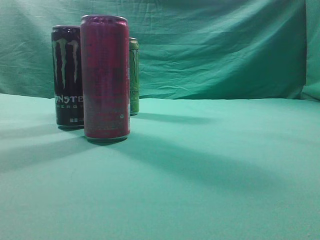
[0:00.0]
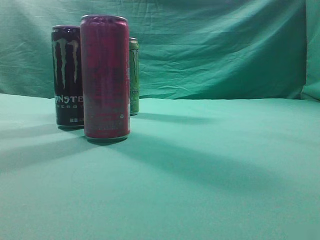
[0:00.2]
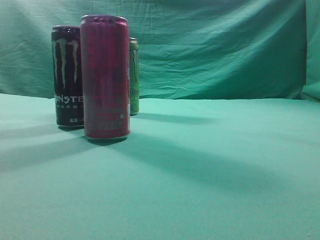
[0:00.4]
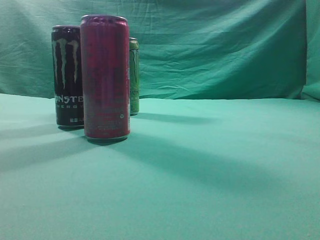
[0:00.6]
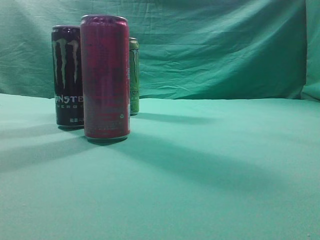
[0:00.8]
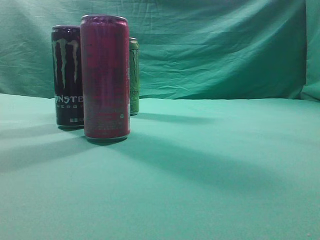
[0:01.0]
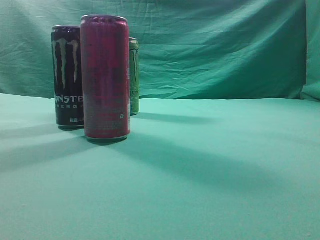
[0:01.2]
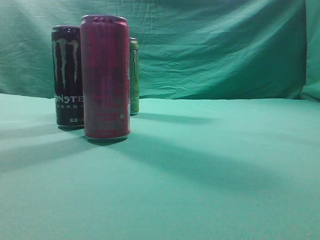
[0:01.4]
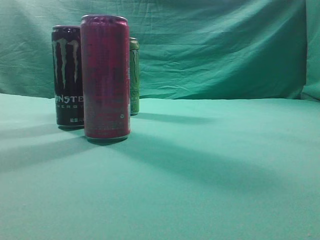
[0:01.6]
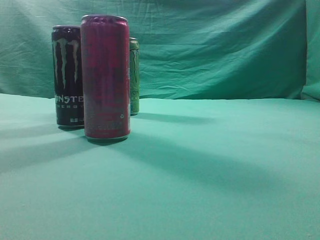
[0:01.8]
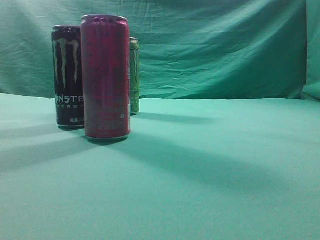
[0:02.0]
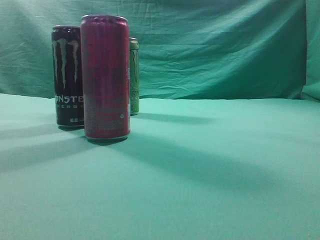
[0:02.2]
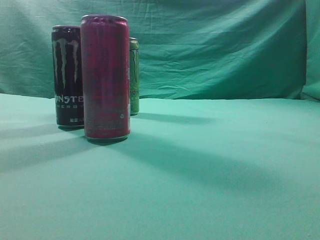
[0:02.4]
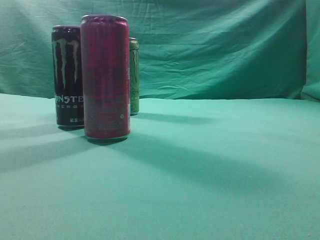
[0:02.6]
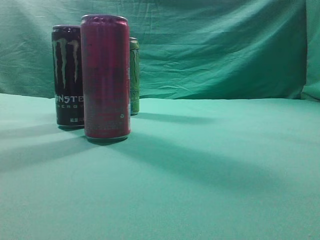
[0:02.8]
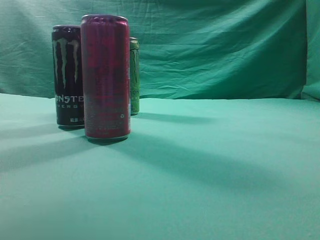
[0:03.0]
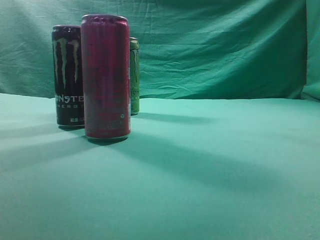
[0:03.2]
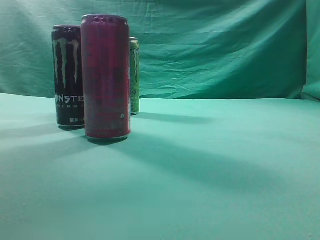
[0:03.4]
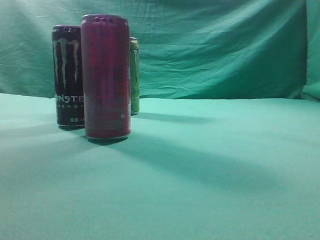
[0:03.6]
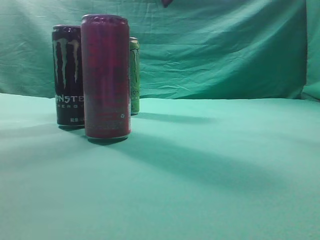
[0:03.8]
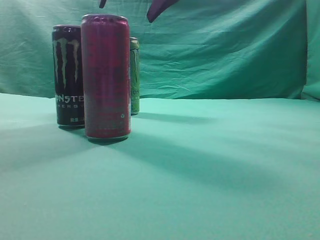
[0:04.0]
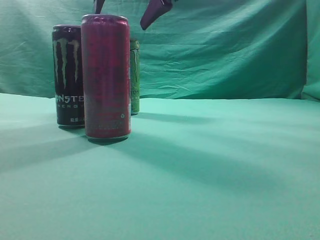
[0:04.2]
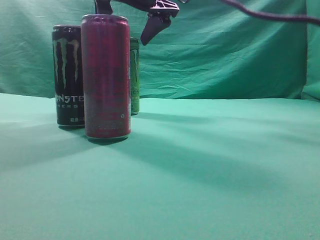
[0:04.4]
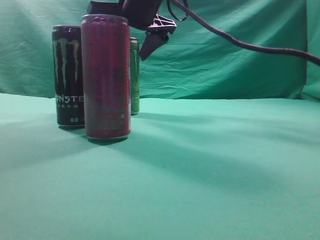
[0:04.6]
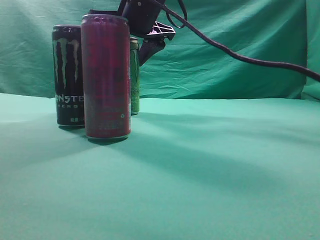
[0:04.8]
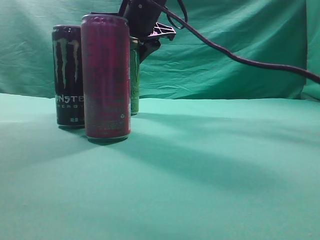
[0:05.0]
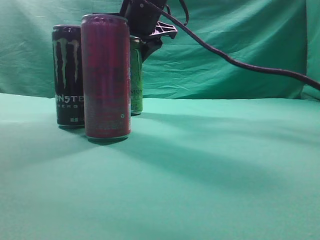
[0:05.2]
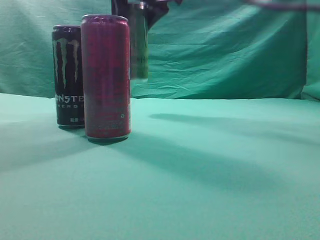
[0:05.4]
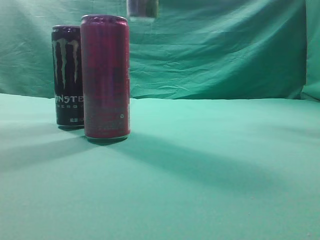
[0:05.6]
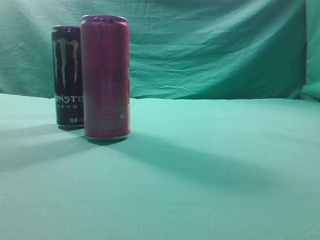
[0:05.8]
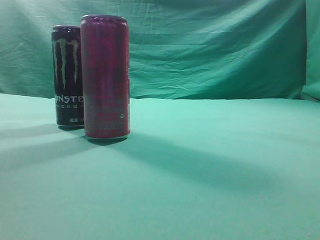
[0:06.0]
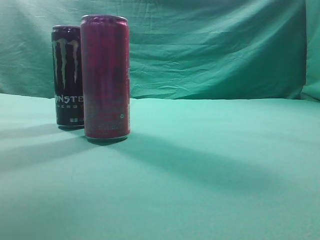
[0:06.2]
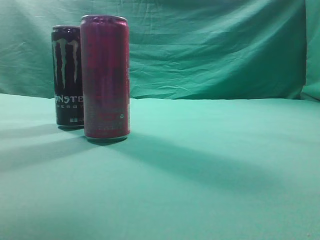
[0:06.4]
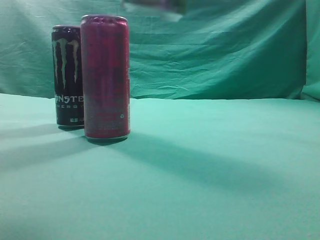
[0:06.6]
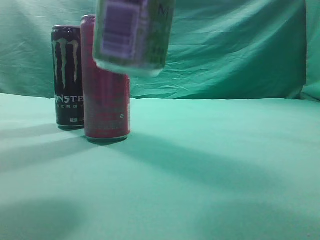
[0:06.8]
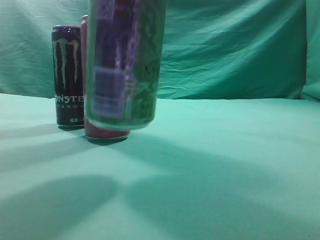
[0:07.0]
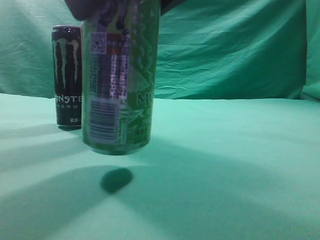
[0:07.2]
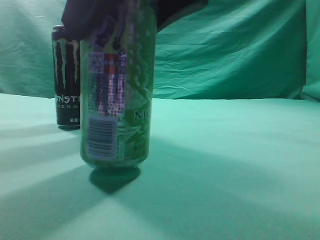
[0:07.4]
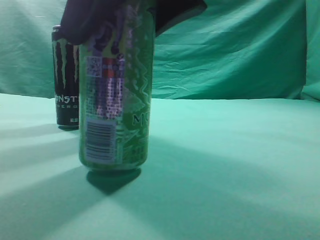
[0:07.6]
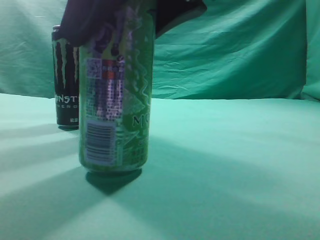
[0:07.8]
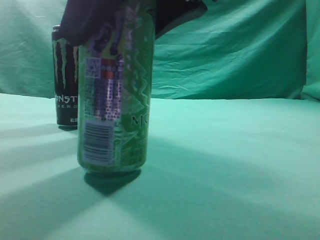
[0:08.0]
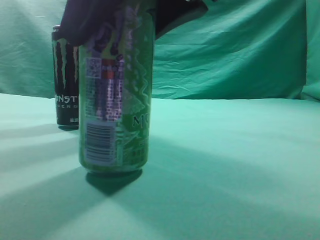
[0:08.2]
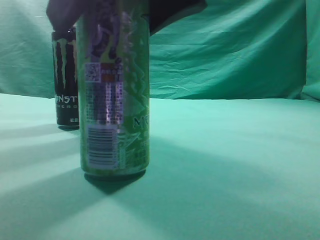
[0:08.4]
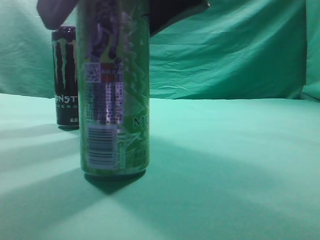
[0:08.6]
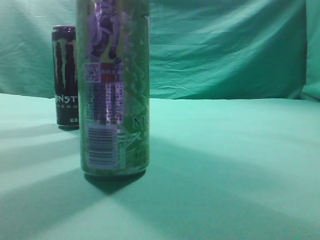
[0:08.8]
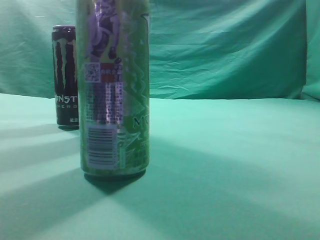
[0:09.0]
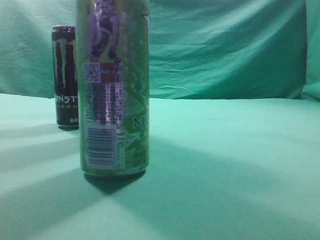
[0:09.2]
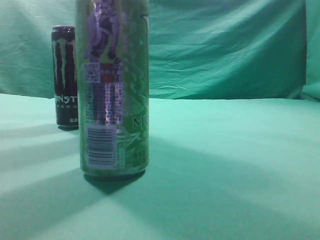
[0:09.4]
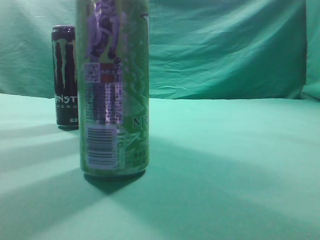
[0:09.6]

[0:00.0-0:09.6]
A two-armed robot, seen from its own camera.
Task of the whole recording: move one drink among three beverages.
Step, 0:00.0 to 0:05.4: Grasp the beverage bottle placed at the back of the desk.
Step, 0:05.6 to 0:09.0: Place the beverage bottle to the front of the table.
0:01.6 to 0:03.2: The right gripper shifts roughly 30 cm forward and to the left.
0:03.2 to 0:04.8: The right gripper goes some 20 cm forward, to the left and downward, and opens.
0:04.8 to 0:06.4: The right gripper goes some 30 cm backward, to the right and upward.
0:06.4 to 0:08.0: The right gripper travels downward and to the left by about 15 cm.
0:08.0 to 0:09.6: The right gripper heads upward and to the right, covering about 20 cm, and closes up.
